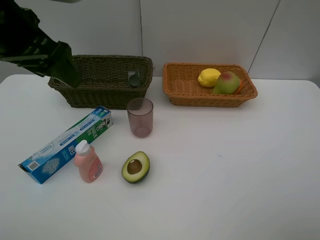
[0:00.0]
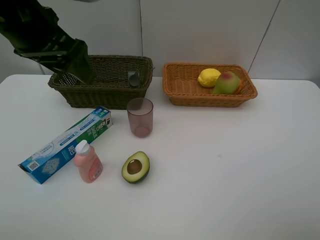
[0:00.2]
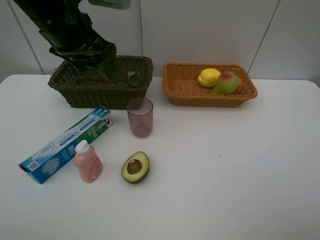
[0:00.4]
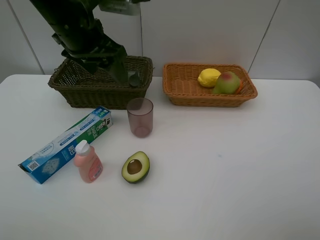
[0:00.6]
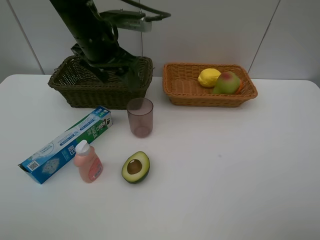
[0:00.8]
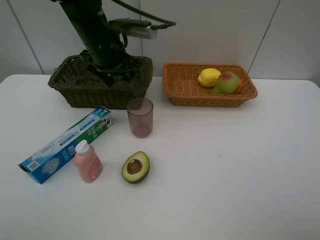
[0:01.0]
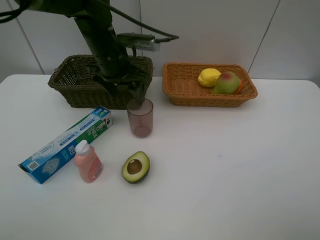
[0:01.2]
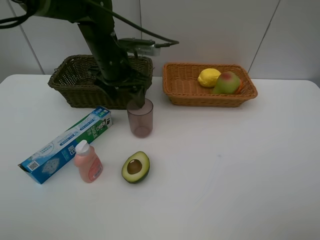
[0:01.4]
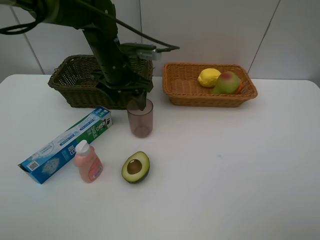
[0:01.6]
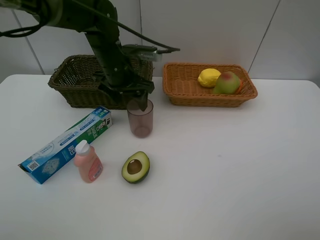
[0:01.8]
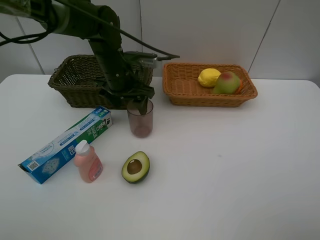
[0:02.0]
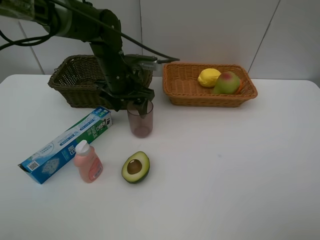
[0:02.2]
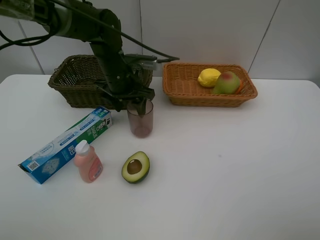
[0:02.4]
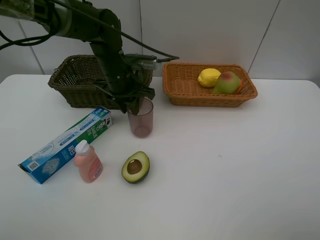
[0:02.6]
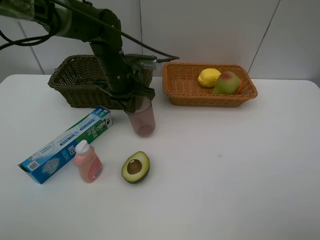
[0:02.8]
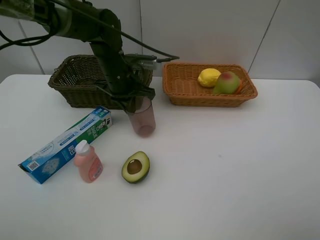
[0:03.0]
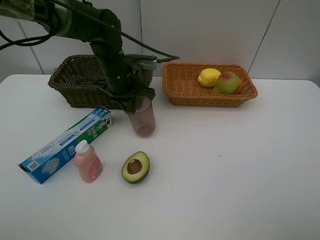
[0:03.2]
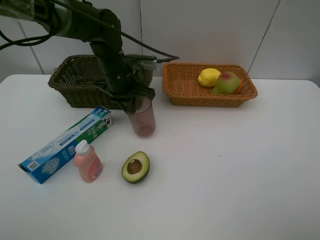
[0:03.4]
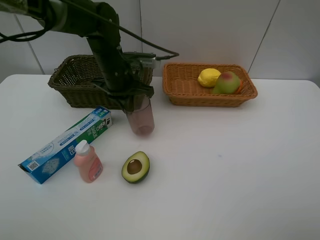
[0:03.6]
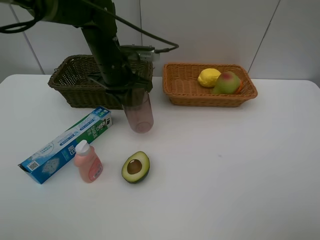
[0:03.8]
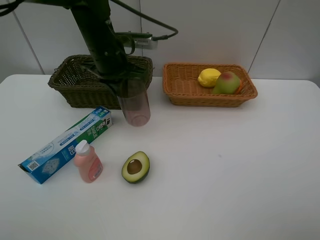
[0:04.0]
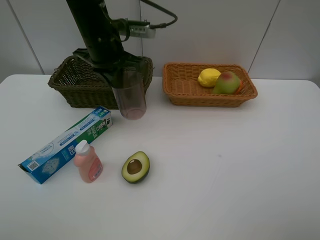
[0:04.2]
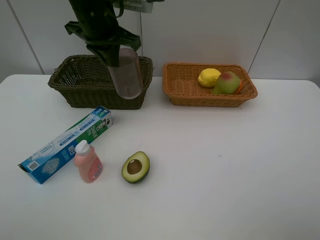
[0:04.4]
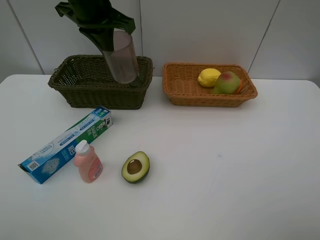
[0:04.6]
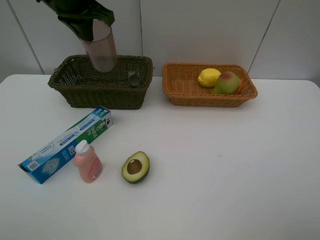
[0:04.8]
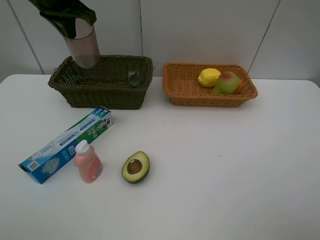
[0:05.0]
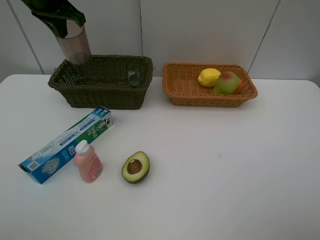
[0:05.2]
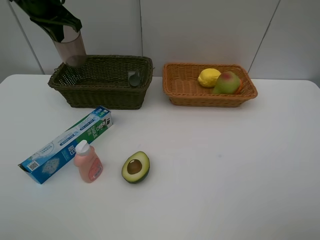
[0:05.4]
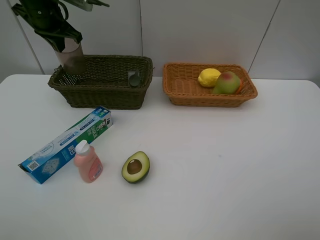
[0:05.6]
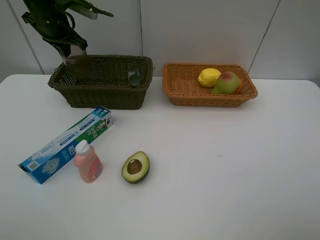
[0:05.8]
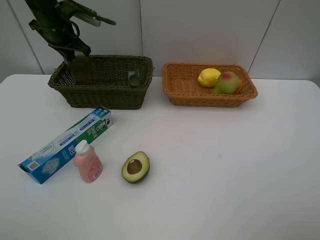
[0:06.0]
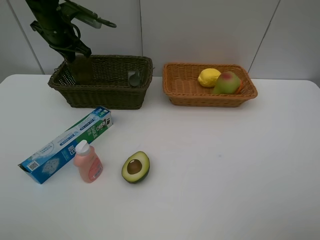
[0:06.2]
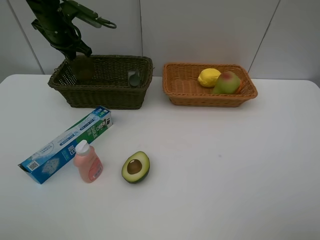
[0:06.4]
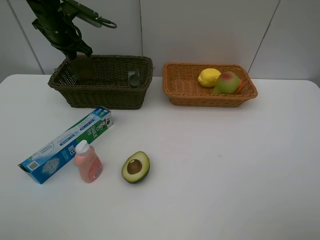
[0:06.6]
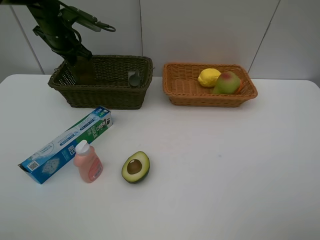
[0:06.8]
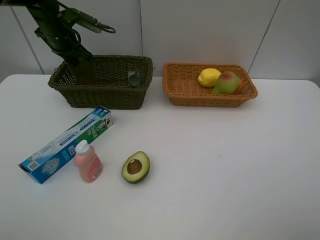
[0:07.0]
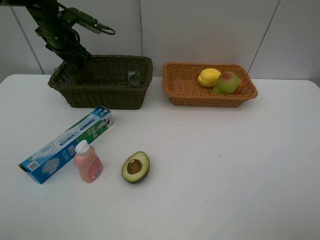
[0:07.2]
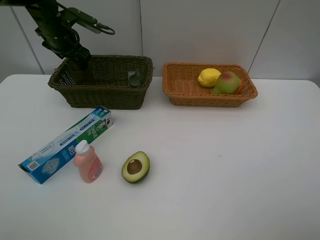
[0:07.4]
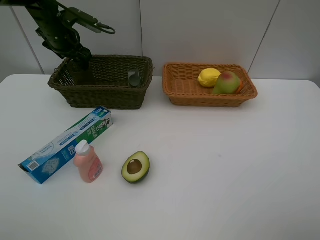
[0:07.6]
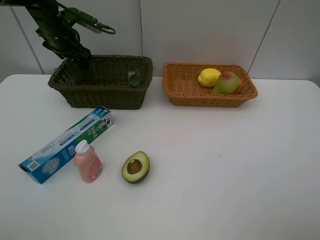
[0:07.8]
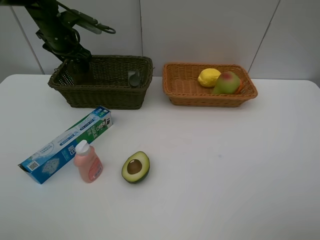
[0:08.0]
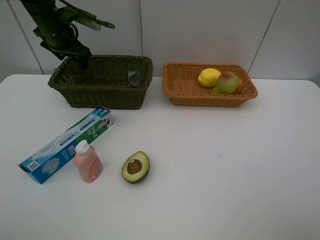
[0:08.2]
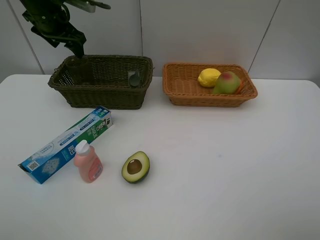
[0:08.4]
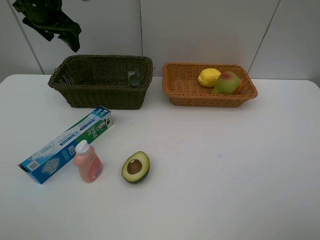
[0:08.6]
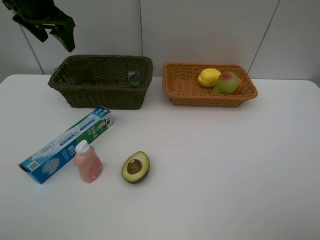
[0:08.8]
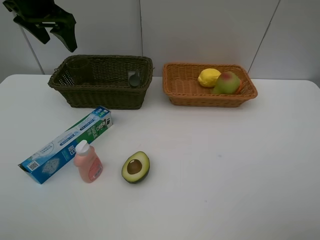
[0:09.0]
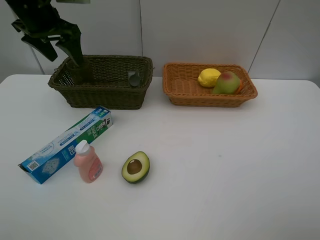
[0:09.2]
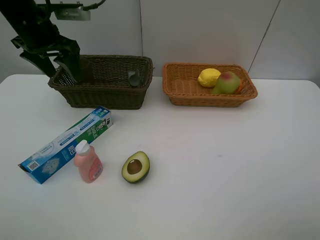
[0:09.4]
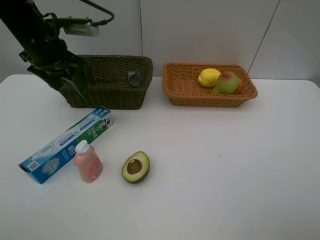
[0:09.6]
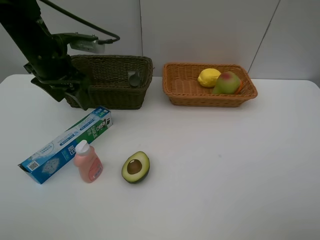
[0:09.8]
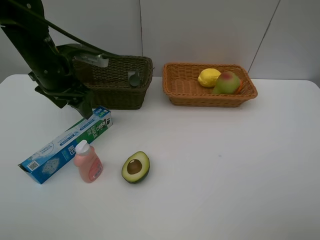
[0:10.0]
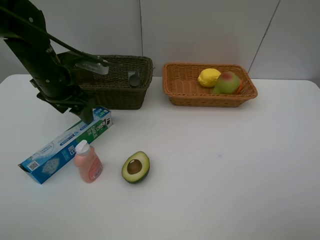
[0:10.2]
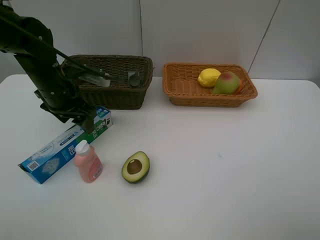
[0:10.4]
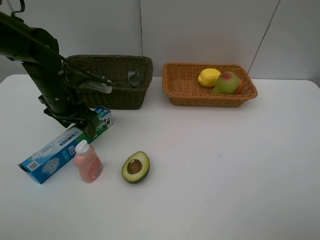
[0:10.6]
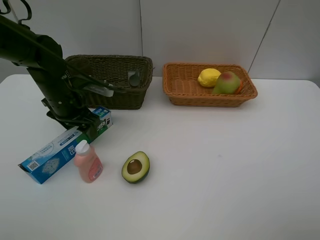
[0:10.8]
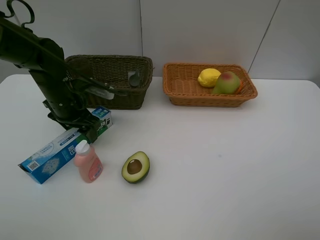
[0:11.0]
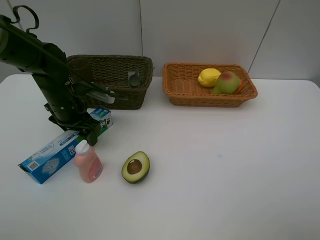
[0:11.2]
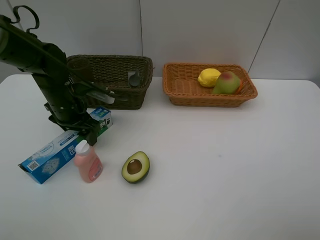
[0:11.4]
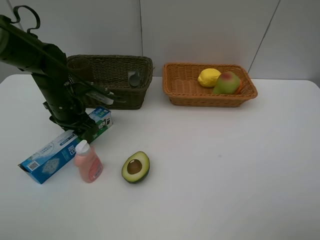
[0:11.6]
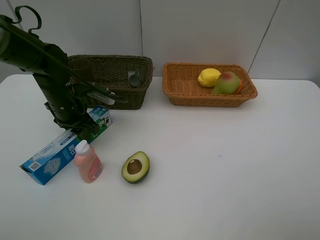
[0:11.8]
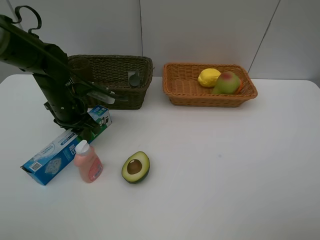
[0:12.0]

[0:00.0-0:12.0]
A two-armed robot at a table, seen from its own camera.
Task of the whole recording: Place multiple objects separately in different baskets.
Step, 0:00.0 to 0:03.8: Pick up the red cup with left gripper.
Step, 0:04.0 to 0:08.4: Place the red cup in the dark basket with left gripper.
0:00.0 to 0:01.6: The left gripper travels downward, forward and to the right by roughly 20 cm.
0:01.6 to 0:03.0: The left gripper closes up.
0:03.0 to 0:04.4: The left gripper moves upward, about 15 cm.
0:04.4 to 0:06.0: The left gripper travels to the left, forward and downward by some 20 cm.
0:06.0 to 0:07.6: The left gripper opens up.
0:07.6 to 0:09.0: The left gripper moves upward and backward, some 10 cm.
0:09.0 to 0:10.4: The left gripper shifts roughly 20 cm downward and backward.
0:10.4 to 0:12.0: The left gripper closes its fingers.

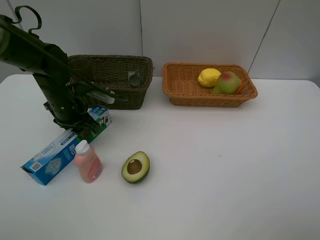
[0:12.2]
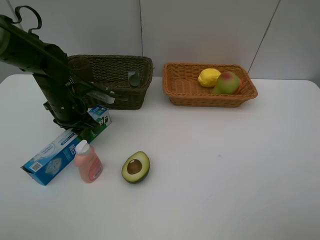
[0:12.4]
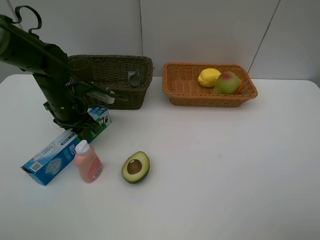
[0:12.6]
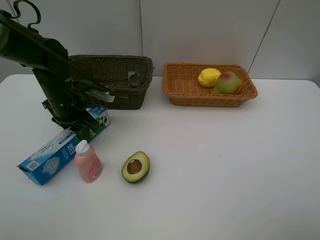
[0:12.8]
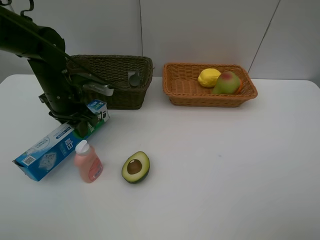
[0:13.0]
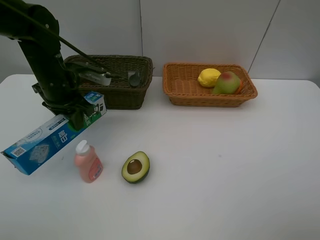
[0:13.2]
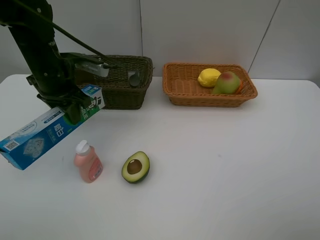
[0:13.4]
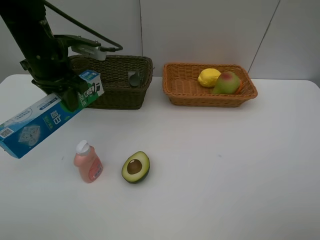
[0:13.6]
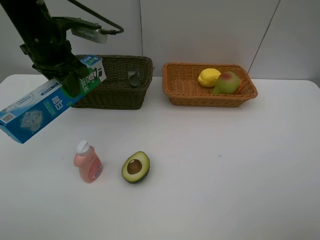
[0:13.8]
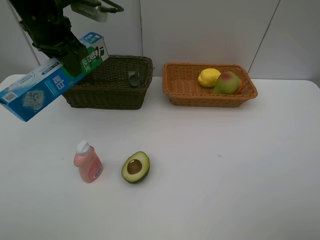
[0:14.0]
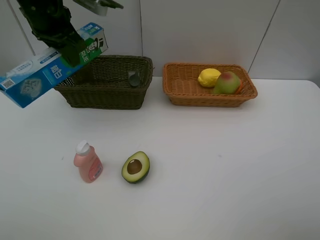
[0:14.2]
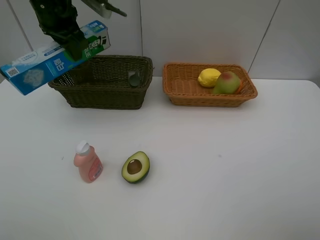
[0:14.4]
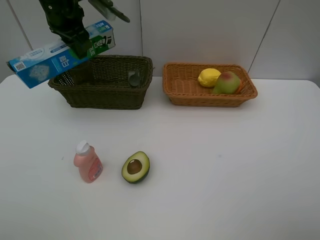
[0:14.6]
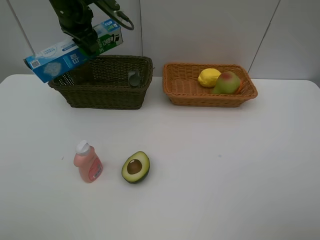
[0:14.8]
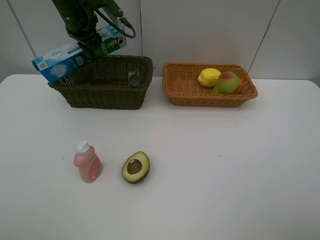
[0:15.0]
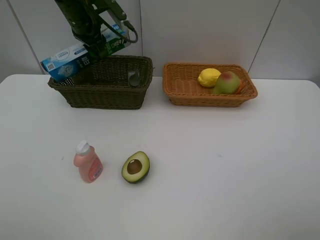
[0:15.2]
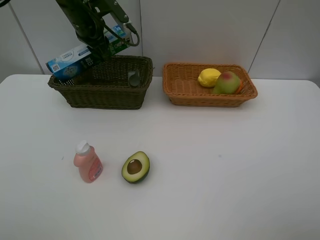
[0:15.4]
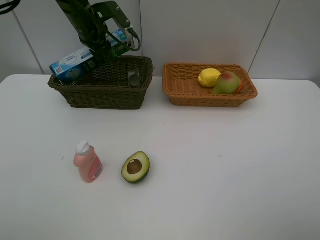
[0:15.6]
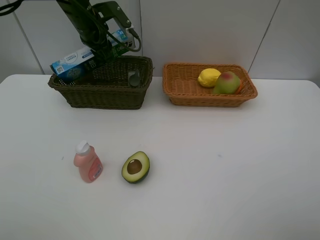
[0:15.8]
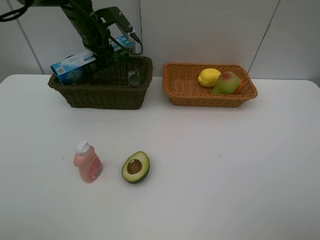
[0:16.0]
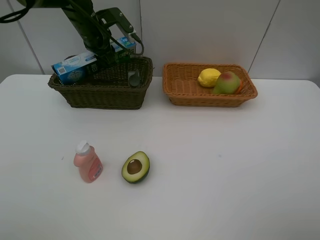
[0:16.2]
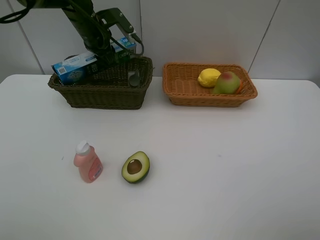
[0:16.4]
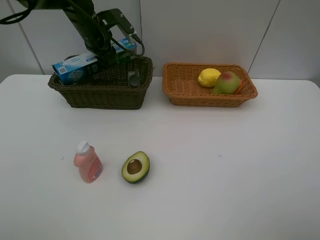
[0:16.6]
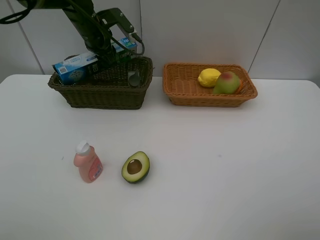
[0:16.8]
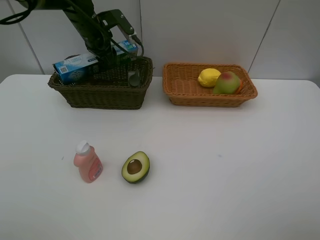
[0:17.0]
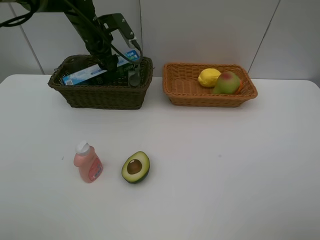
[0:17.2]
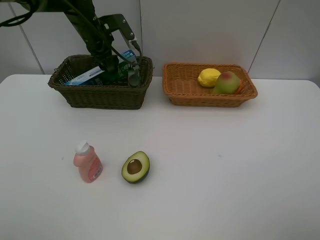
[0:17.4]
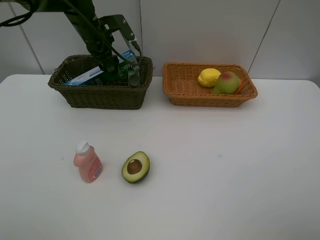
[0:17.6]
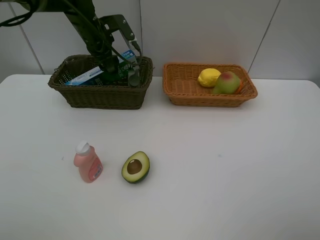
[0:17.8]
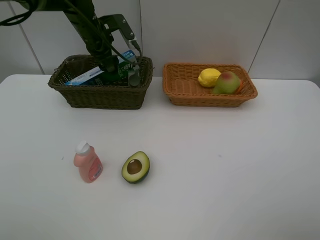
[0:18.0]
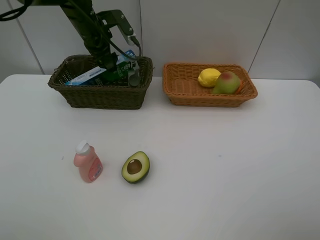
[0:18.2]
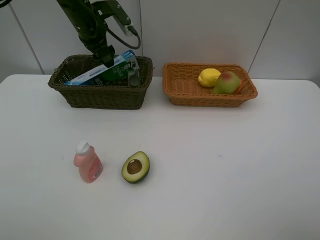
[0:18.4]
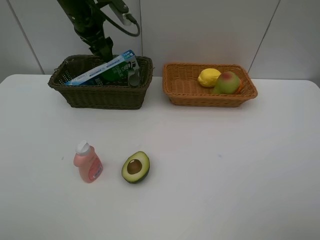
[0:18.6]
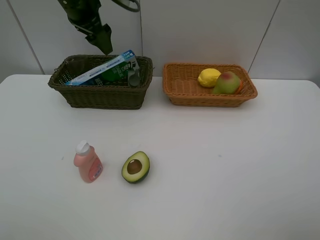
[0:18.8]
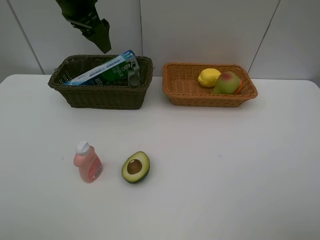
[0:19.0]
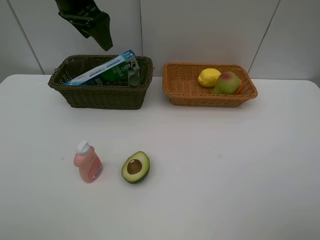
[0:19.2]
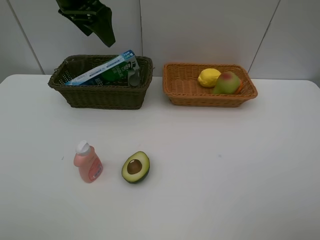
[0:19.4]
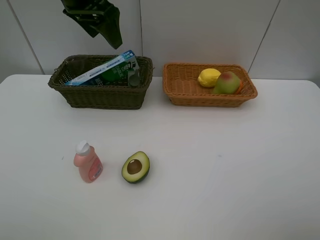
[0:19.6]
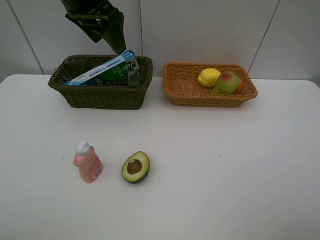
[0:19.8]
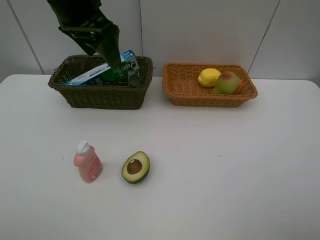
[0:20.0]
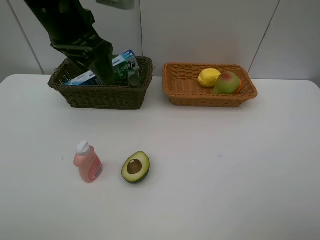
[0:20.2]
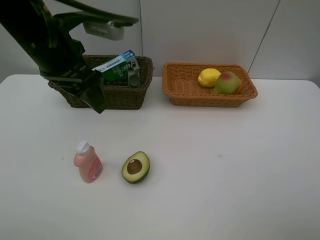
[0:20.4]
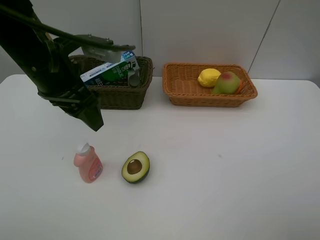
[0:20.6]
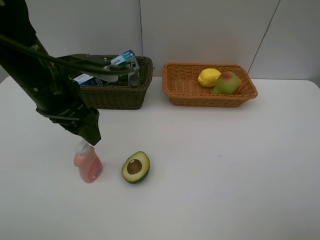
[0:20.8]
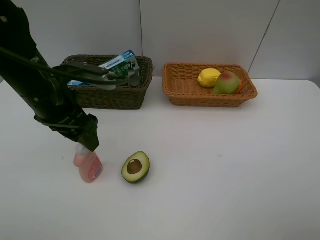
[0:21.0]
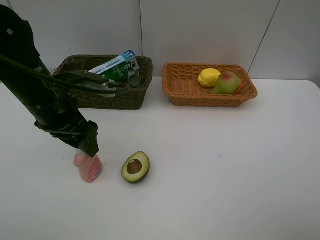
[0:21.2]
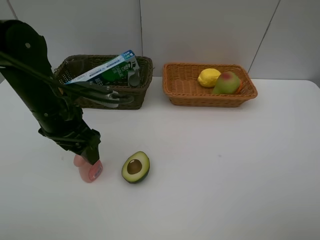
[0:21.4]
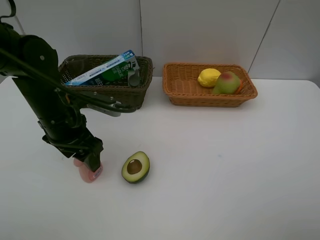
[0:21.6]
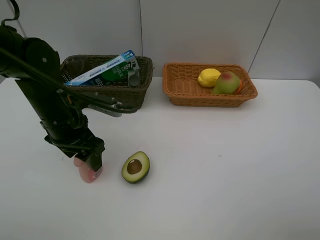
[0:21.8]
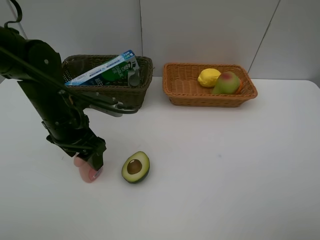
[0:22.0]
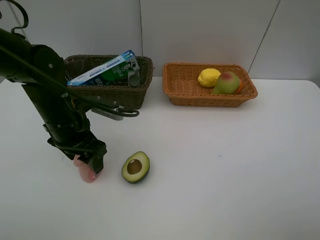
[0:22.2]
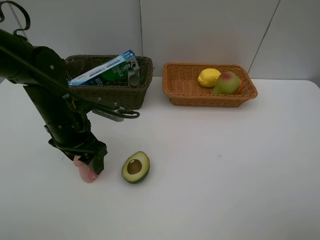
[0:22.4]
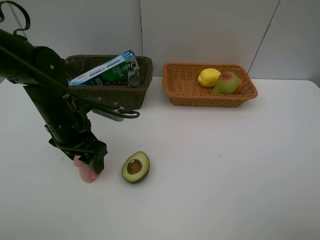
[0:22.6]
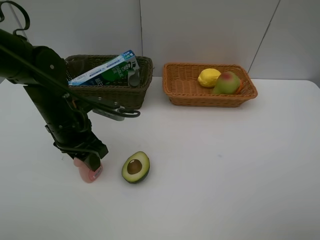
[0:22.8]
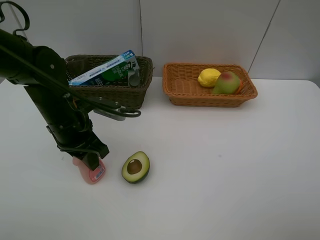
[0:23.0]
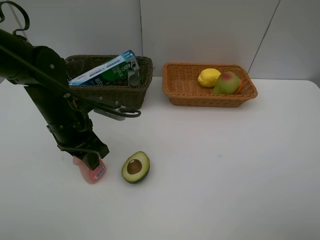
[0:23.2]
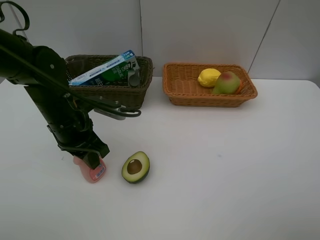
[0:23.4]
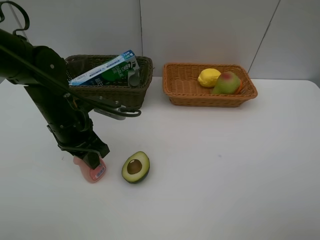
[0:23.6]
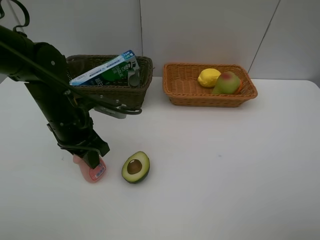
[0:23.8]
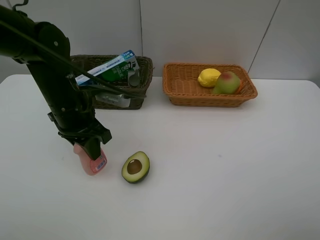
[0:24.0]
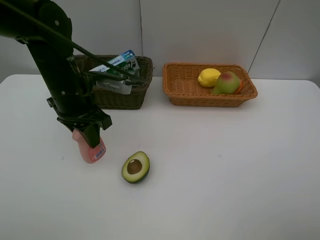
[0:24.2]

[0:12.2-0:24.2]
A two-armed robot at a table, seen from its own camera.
Task of the whole recording: Place multiple objects separately in different baskets.
Step, 0:13.2 to 0:18.6: Place the toothpaste in the dark basket with left gripper.
Step, 0:18.8 to 0:24.0: Pick up the laundry detergent with left gripper.
0:12.2 to 0:13.8: The left gripper heads upward, covering about 15 cm.
0:13.8 to 0:15.2: The left gripper goes approximately 10 cm forward.
0:15.2 to 0:16.6: The grippers make only small movements.
0:16.6 to 0:18.2: The left gripper opens.
0:18.2 to 0:19.8: The left gripper goes approximately 15 cm upward and backward.
0:19.8 to 0:21.2: The left gripper shifts some 20 cm downward and backward.
0:21.2 to 0:22.6: The left gripper travels downward by approximately 5 cm.
0:22.6 to 0:24.2: The left gripper travels upward by some 5 cm, and closes its fingers.
